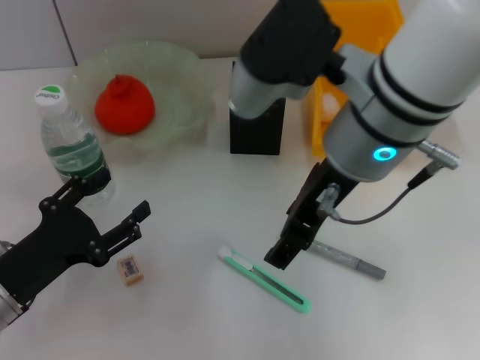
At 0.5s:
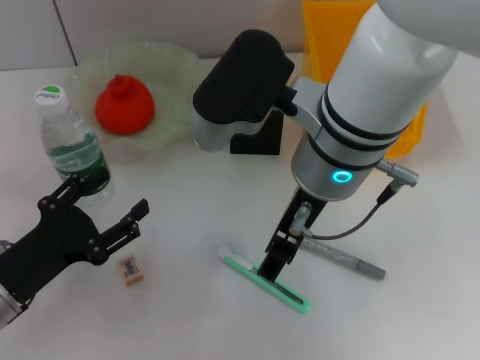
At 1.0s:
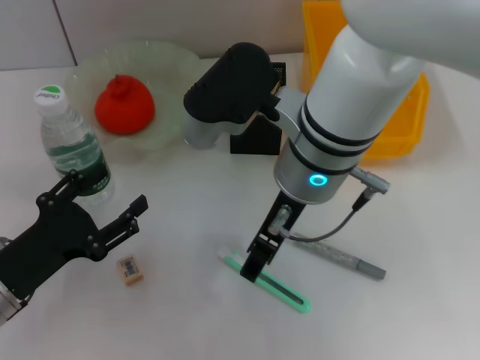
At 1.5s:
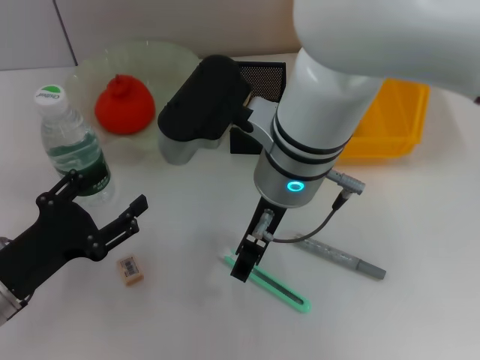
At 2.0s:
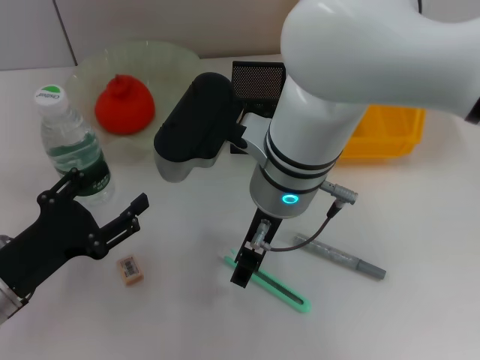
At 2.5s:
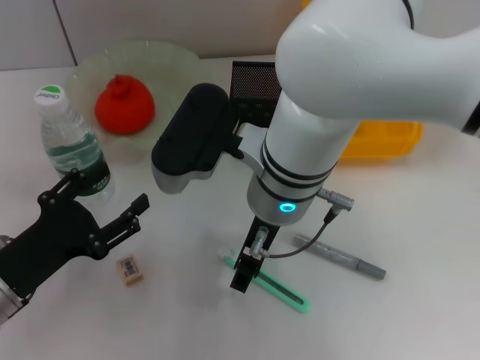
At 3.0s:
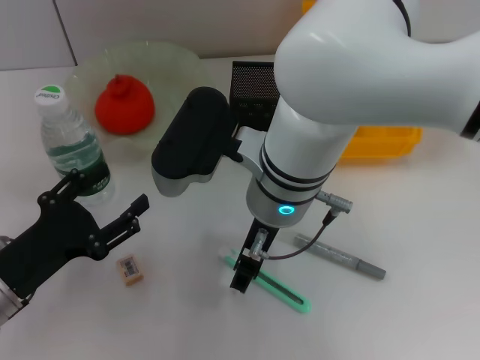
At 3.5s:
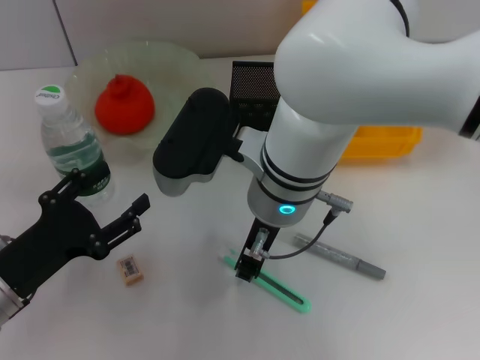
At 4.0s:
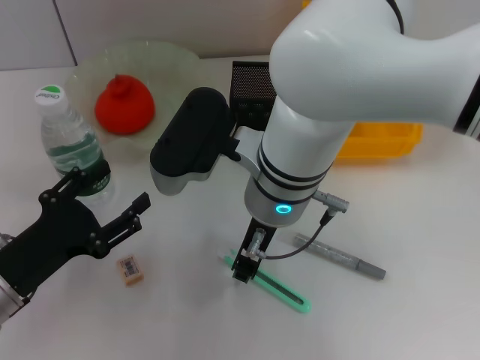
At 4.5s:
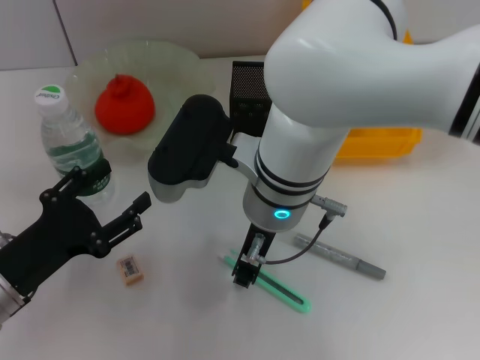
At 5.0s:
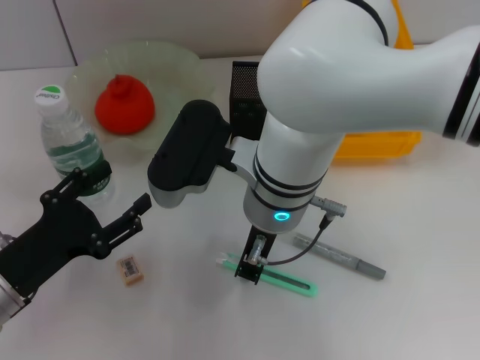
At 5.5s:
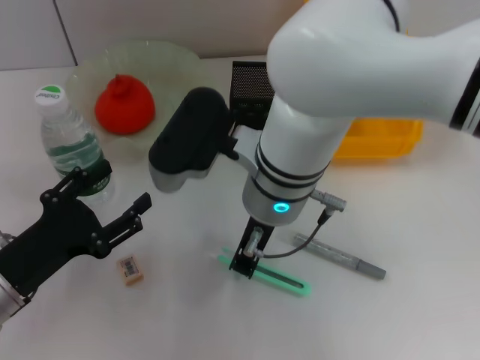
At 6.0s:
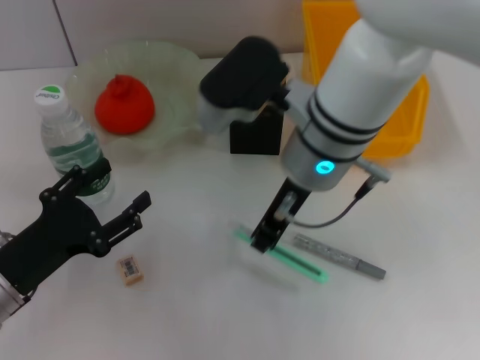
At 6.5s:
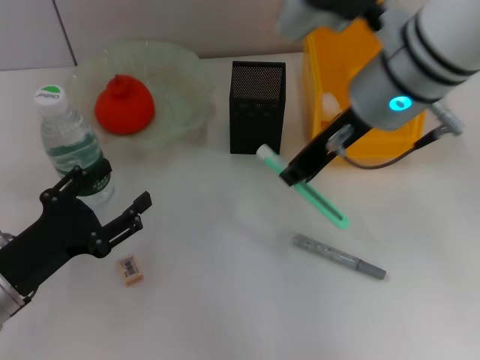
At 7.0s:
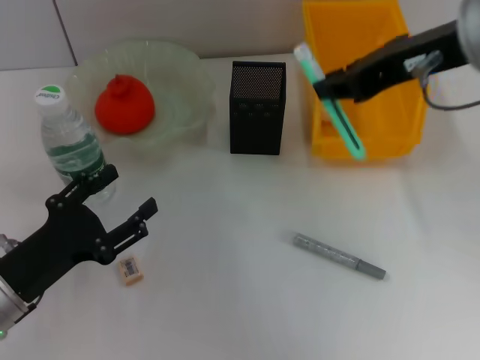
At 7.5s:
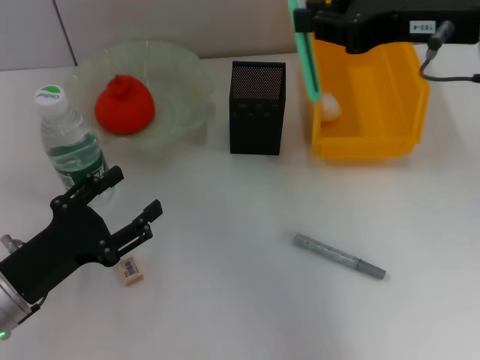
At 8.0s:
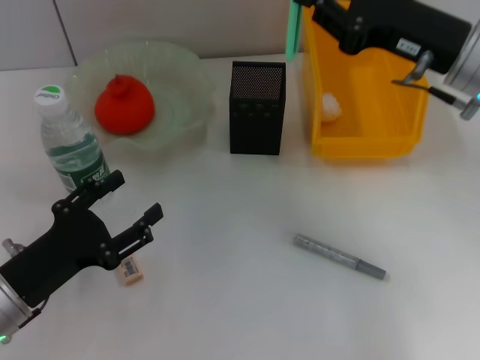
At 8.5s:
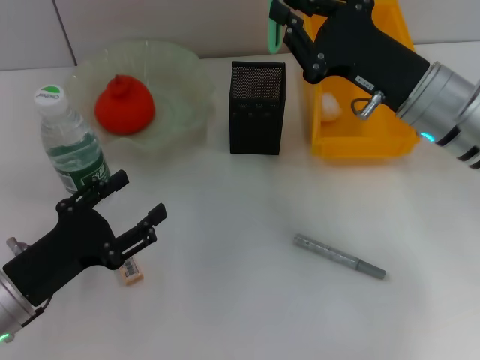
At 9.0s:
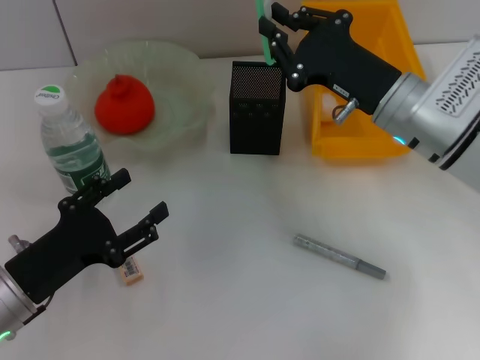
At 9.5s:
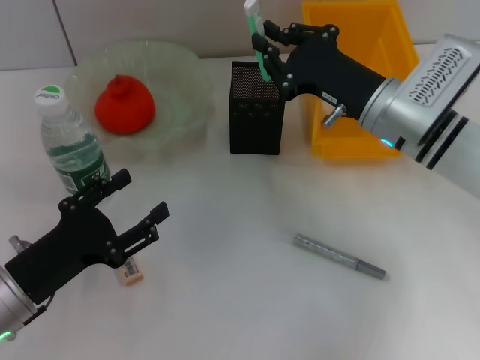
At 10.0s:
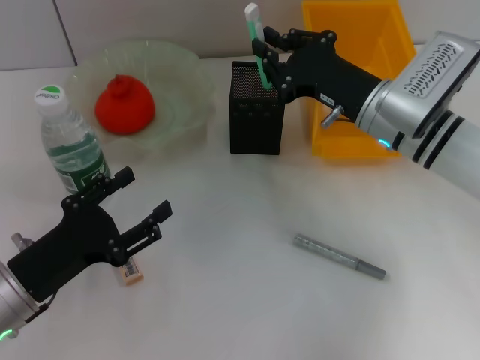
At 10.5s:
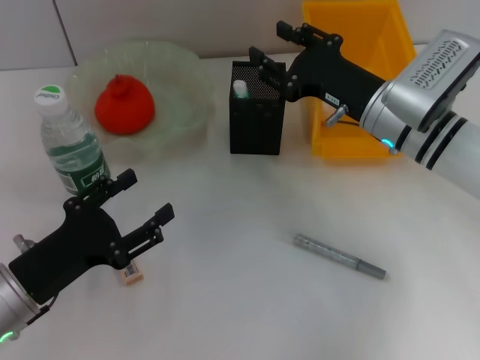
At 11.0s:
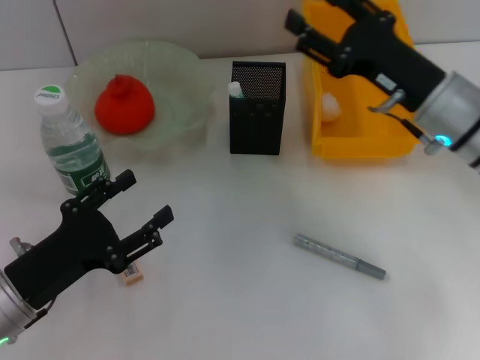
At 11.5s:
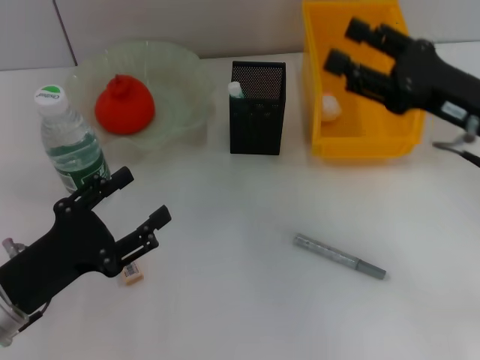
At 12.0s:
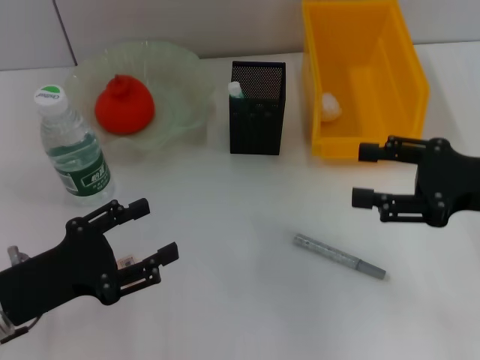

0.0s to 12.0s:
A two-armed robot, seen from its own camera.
Step, 0.0s to 5.0s: Grab the blue utility knife with the right hand.
Step, 5.5s to 10.5s: Place the blue utility knife into the pen holder with the right hand.
0.0s to 2.0s: The right gripper heads downward and to the left, covering roughly 10 cm.
2.0s to 4.0s: The right gripper closes up.
4.0s to 6.0s: The right gripper moves approximately 5 cm.
6.0s to 8.0s: The right gripper shifts roughly 15 cm to the right.
8.0s to 10.0s: The right gripper travels downward and to the left by approximately 10 cm.
10.0s to 12.0s: The right gripper shifts roughly 15 cm to the right and backward, and opens up.

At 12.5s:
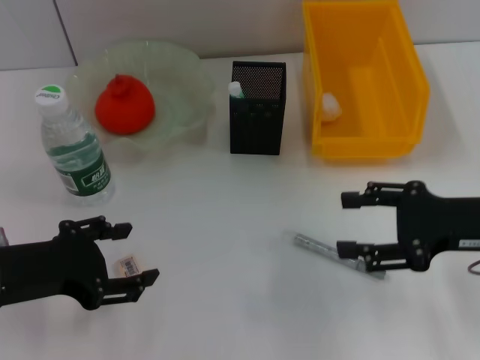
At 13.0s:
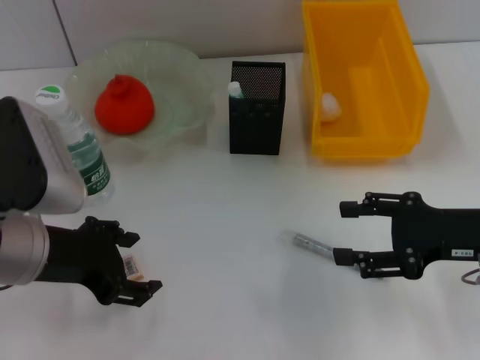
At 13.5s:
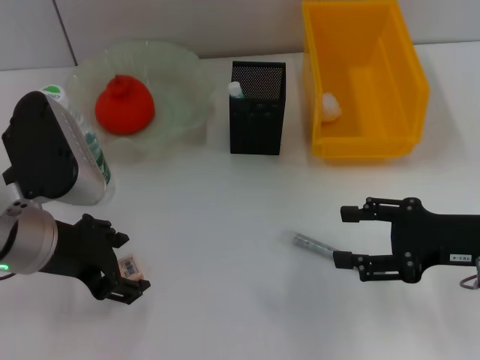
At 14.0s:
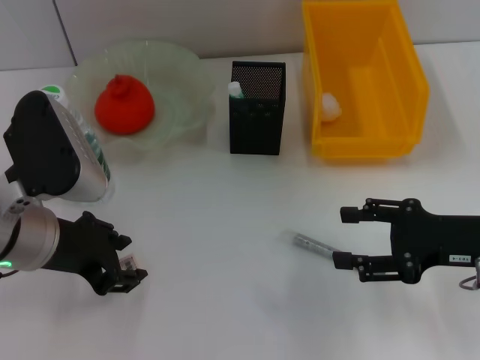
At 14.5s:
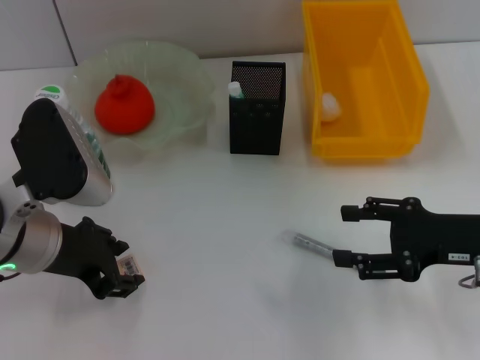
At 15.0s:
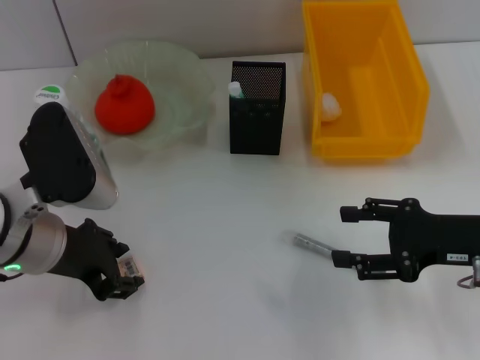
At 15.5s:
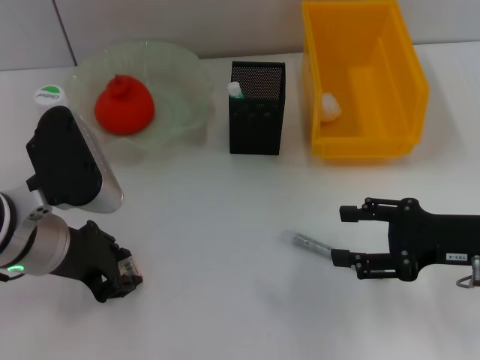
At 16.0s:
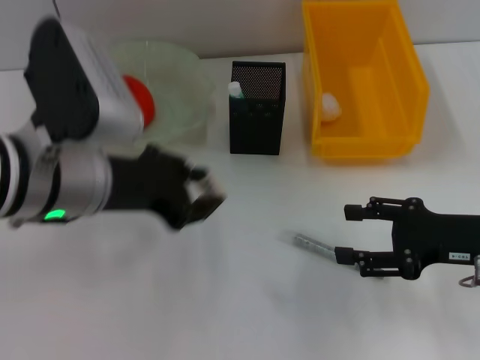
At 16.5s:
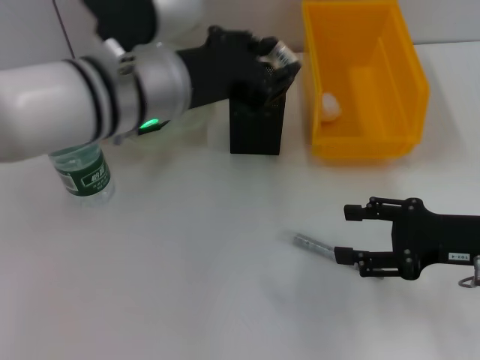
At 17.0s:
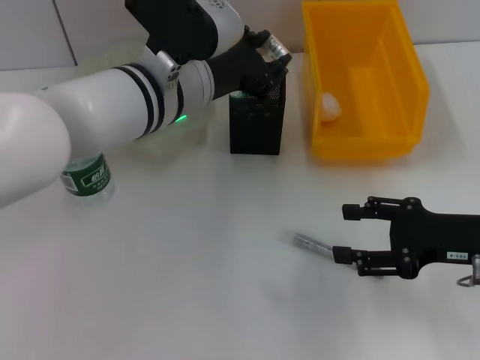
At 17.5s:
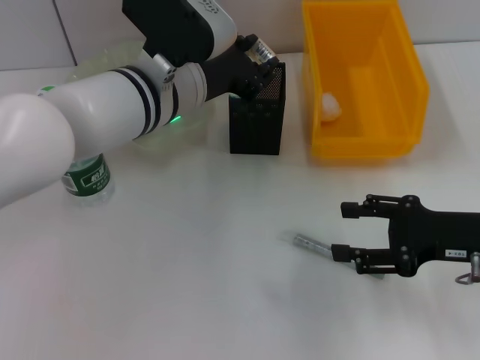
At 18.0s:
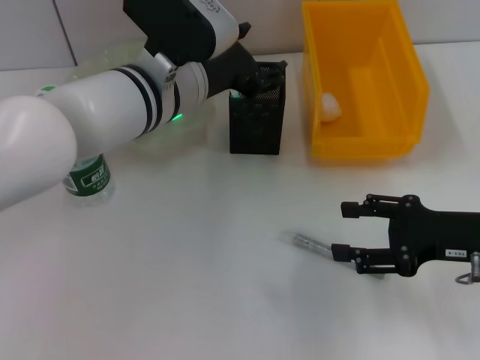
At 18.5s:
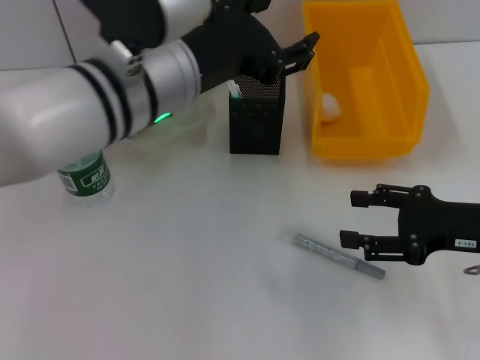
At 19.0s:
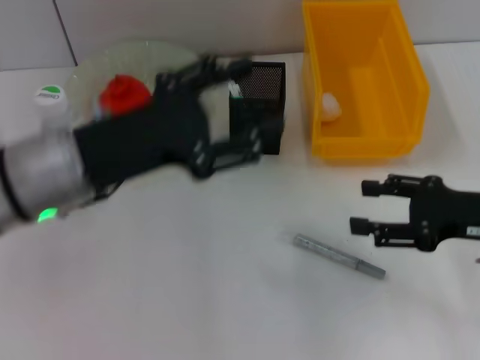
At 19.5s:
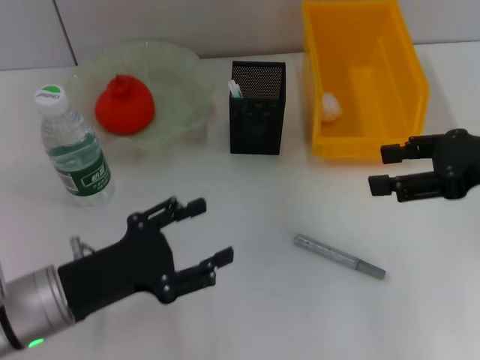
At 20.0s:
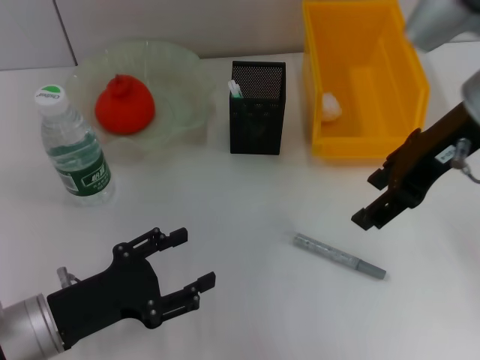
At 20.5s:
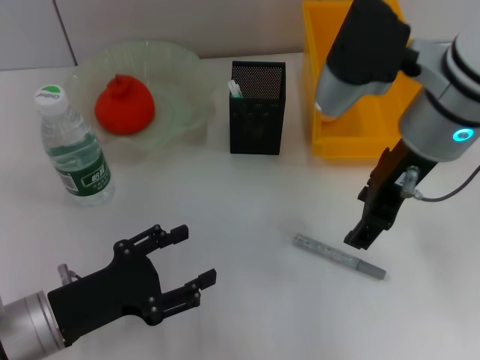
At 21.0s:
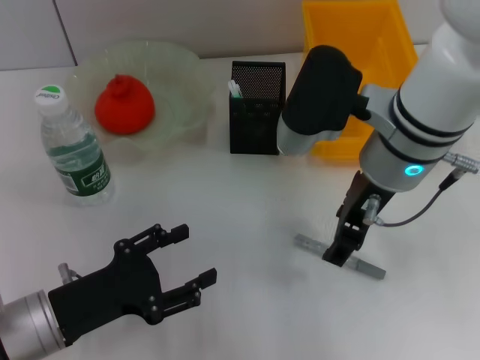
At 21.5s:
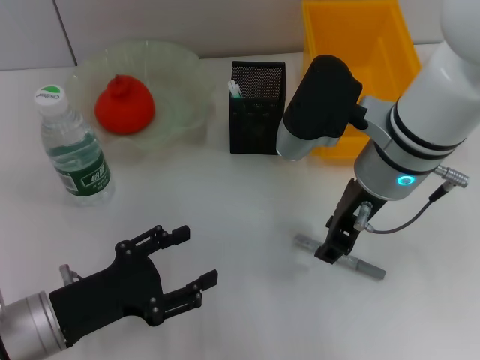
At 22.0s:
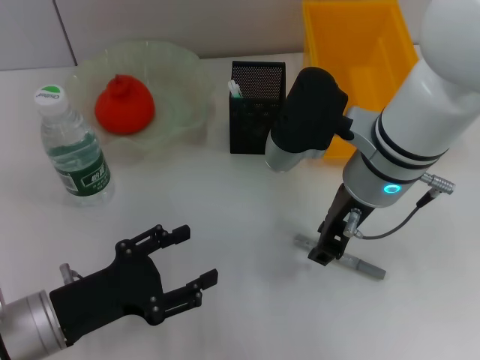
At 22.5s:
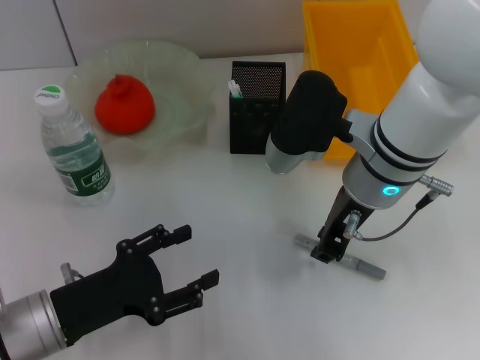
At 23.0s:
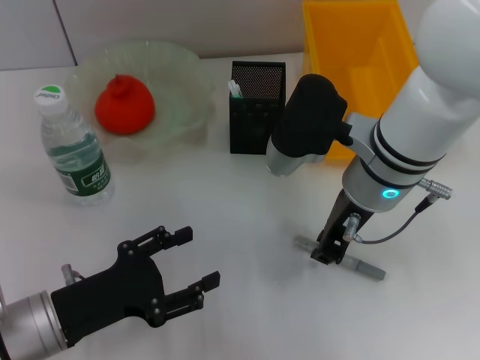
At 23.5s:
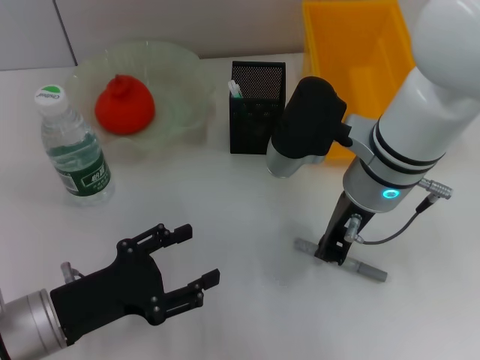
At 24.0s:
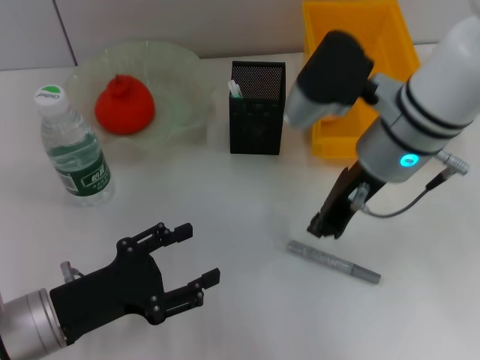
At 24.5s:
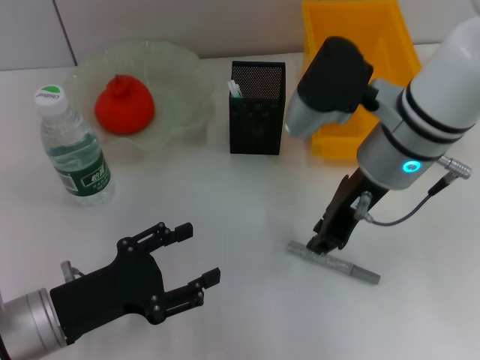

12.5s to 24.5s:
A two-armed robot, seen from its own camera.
Step, 12.5s to 15.0s: Grab the eraser with the left hand.
Step, 16.0s to 17.5s: Place the eraser into the pen holder with the left hand.
Step, 18.0s to 23.0s: Grab the gray glue with the right hand.
12.5s to 14.5s: The left gripper travels to the right by about 5 cm, and closes.
14.5s to 16.5s: The left gripper is displaced to the right, upward and forward by roughly 15 cm.
16.5s to 18.5s: The left gripper opens.
18.5s to 20.5s: The right gripper moves to the left, upward and forward, some 20 cm; the left gripper goes about 25 cm downward, to the left and backward.
20.5s to 22.5s: The right gripper shifts approximately 5 cm downward, and closes its fingers.
22.5s to 24.5s: The right gripper closes up.

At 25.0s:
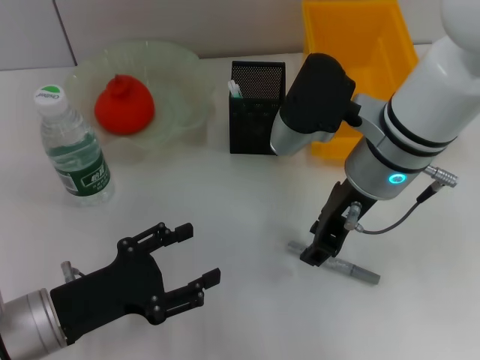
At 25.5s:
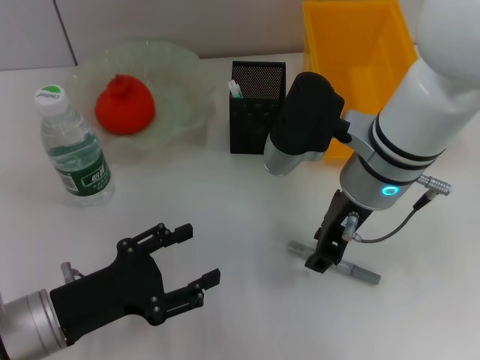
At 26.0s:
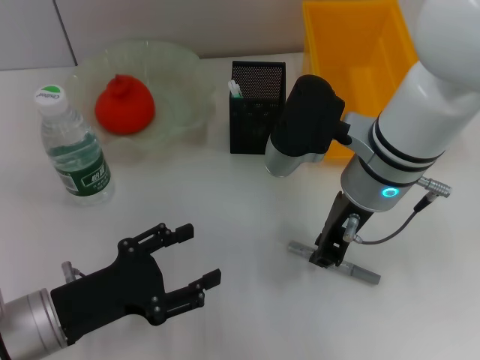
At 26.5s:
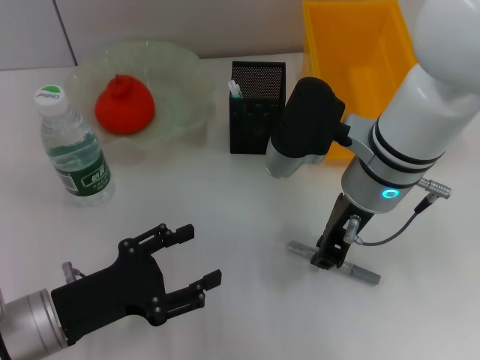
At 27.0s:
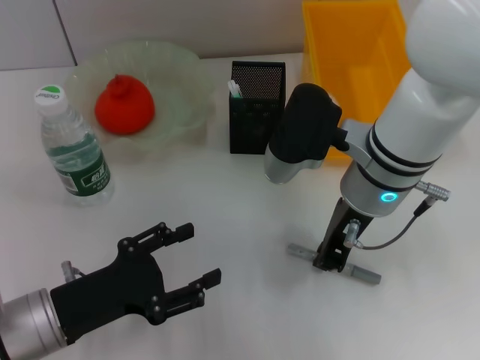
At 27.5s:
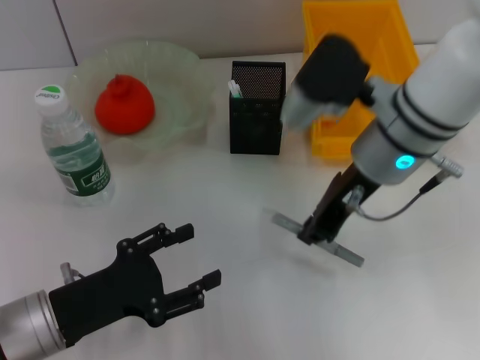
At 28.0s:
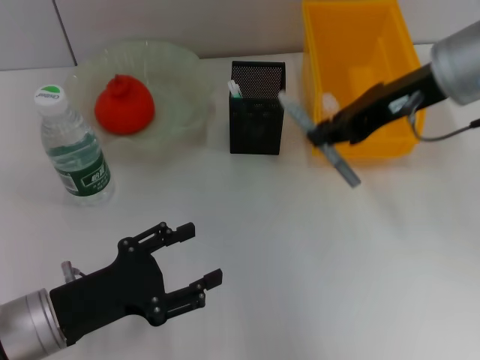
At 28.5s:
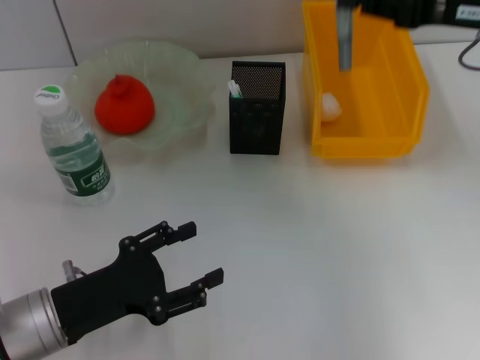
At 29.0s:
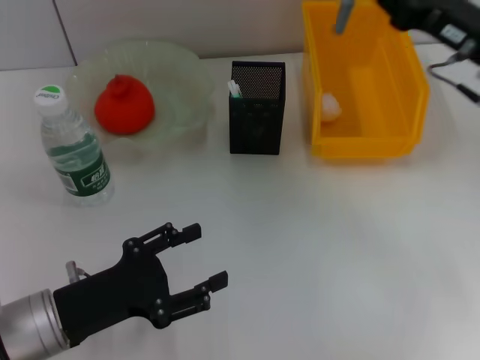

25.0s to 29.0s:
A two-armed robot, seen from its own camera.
25.0s to 27.0s: The right gripper closes.
27.0s to 29.0s: The right gripper moves to the right, approximately 15 cm.
